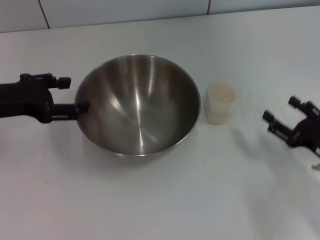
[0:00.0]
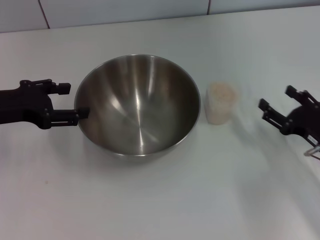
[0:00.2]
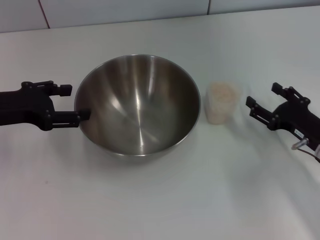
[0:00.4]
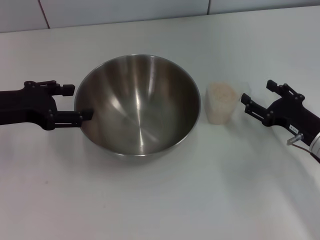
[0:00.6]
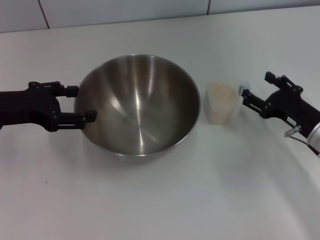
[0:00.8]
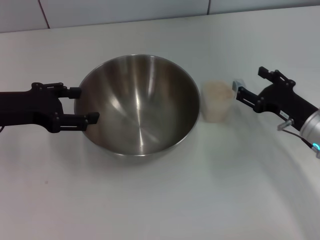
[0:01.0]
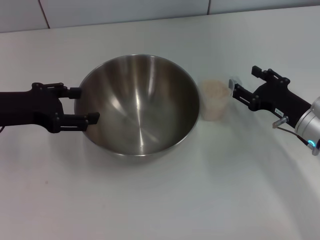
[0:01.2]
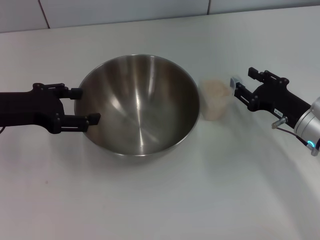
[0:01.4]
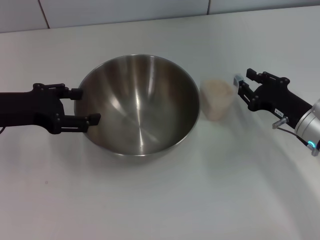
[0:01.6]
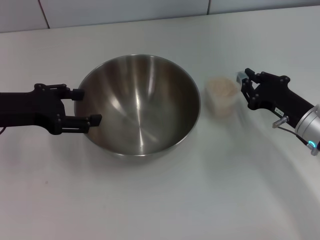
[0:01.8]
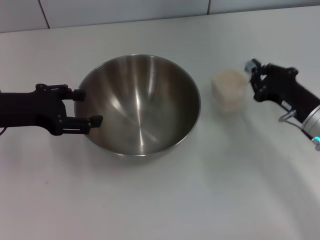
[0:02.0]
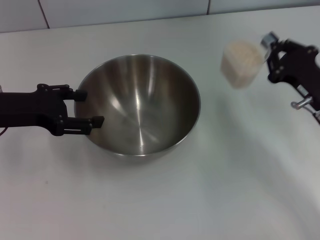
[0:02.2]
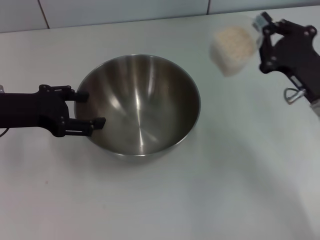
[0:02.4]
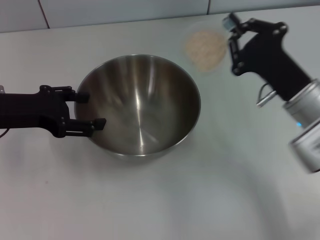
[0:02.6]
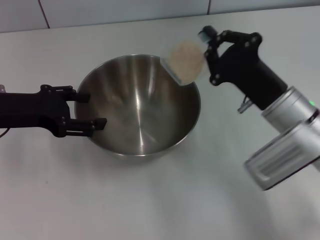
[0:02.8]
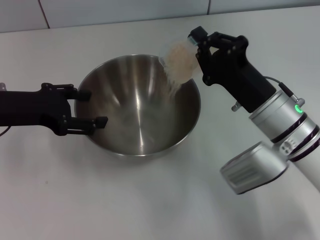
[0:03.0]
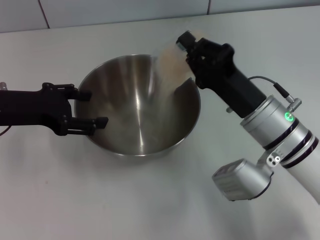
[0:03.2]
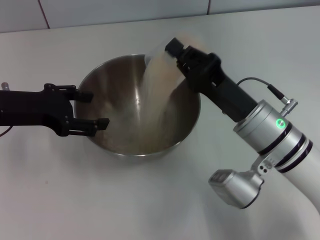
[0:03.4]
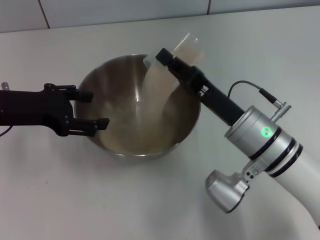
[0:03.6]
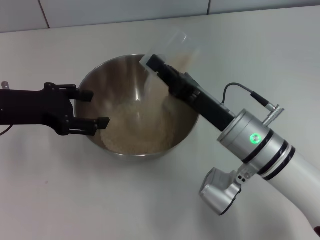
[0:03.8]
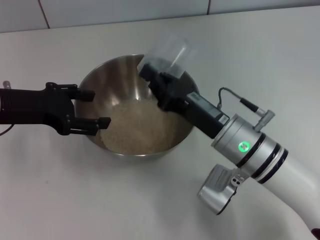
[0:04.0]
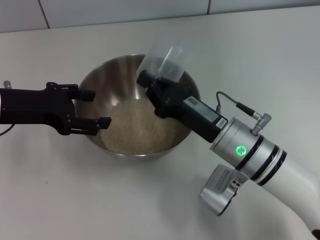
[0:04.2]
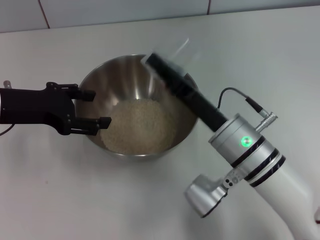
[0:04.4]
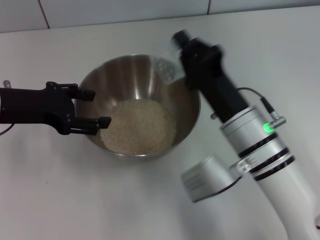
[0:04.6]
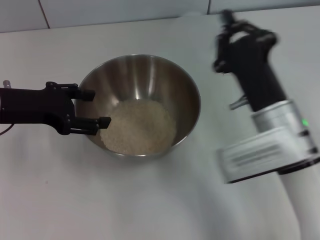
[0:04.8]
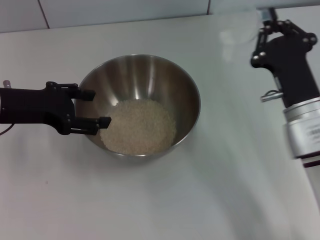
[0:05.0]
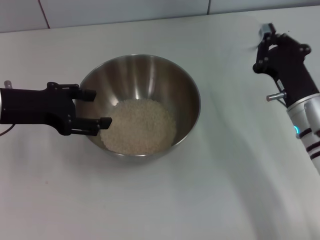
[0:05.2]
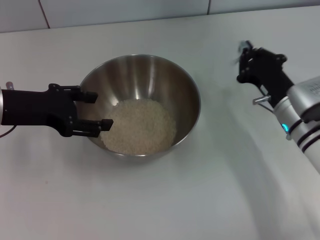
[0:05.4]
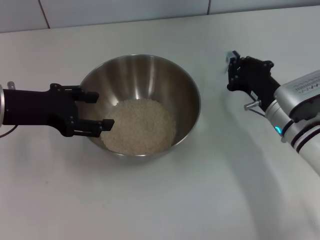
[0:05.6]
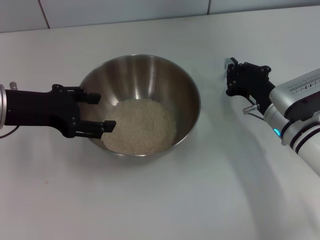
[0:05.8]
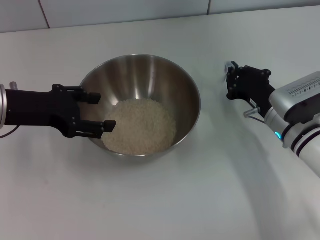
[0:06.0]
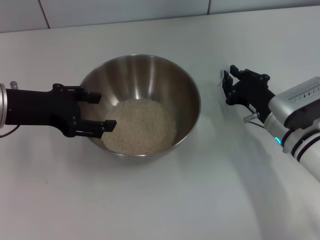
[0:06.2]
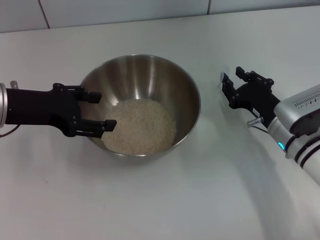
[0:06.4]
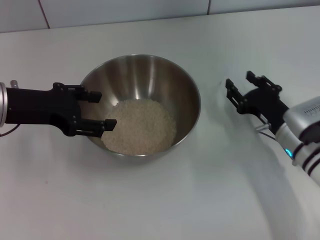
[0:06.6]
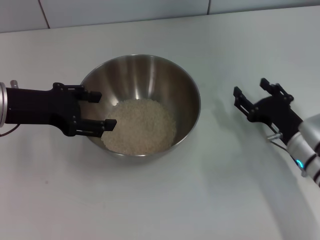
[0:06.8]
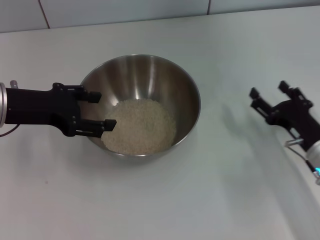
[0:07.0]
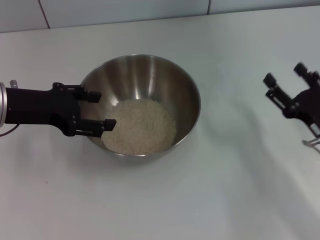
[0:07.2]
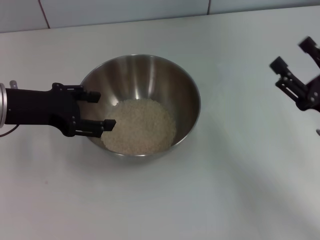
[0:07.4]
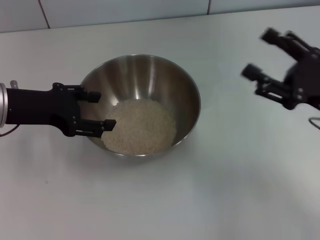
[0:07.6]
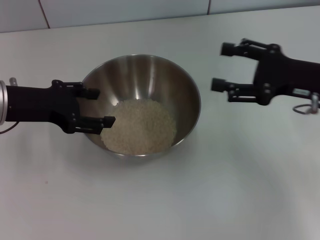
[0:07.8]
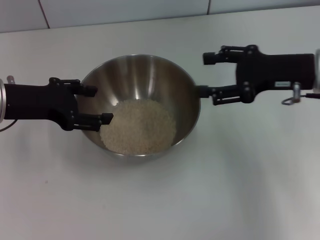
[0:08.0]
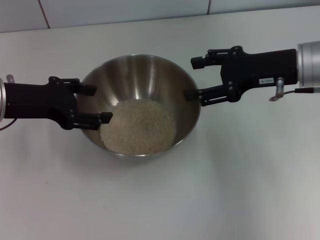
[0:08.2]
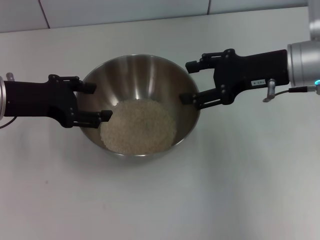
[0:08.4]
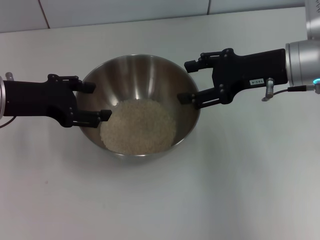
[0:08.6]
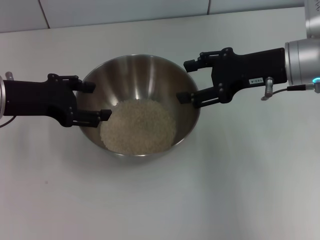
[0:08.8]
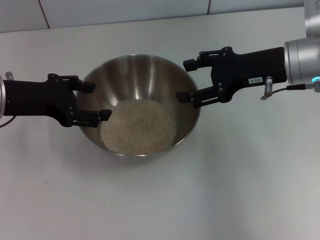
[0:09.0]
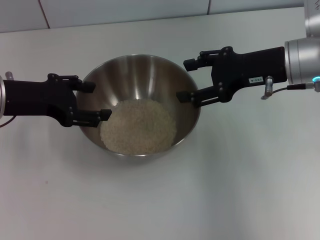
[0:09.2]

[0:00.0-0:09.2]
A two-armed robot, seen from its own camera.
Task of the whole recording: Place the bowl in the middle of the table with one hand and pour the rice from the grain cup into it with the other hand.
Step, 0:00.0 to 0:02.2: Pick up the cup with rice in it with the right gripper.
Step, 0:02.4 to 0:04.6: Pour the rice from the cup into the bowl with the right gripper.
Step, 0:04.8 to 0:06.6: Place the cup on the table with the right gripper.
0:00.0 to 0:01.6: The right gripper goes approximately 10 cm forward.
0:01.6 to 0:03.0: The right gripper goes approximately 10 cm to the left, and closes.
0:03.0 to 0:04.6: The right gripper ends up some 5 cm from where it was.
0:04.6 to 0:06.2: The right gripper moves to the right and downward, approximately 10 cm.
0:06.2 to 0:07.6: The right gripper moves upward and to the right, about 10 cm, and opens up.
0:07.6 to 0:09.2: The right gripper is displaced forward, to the left and upward by about 15 cm.
